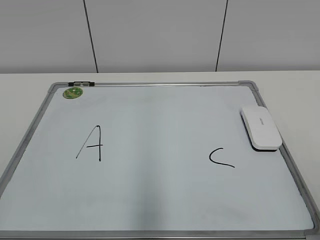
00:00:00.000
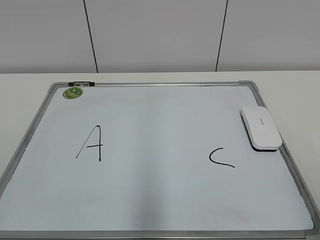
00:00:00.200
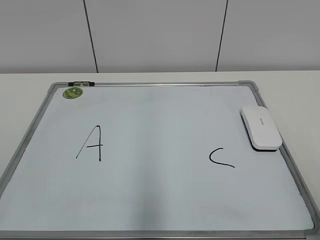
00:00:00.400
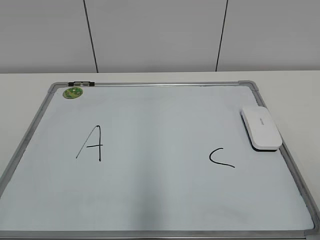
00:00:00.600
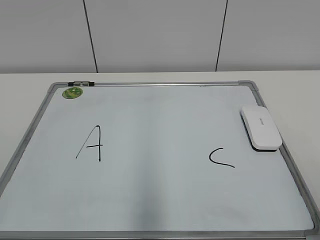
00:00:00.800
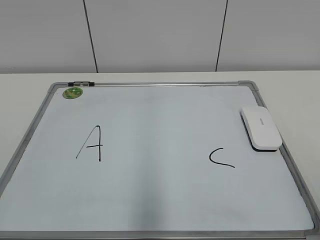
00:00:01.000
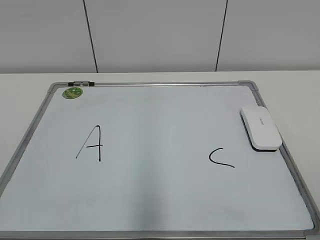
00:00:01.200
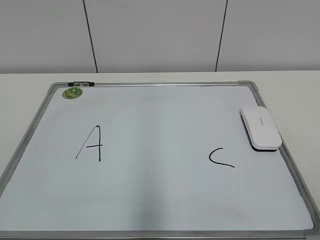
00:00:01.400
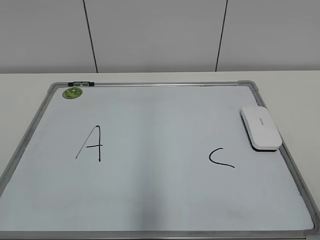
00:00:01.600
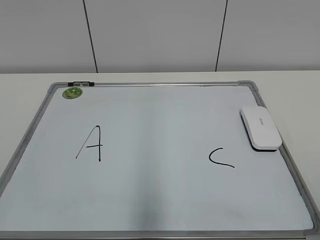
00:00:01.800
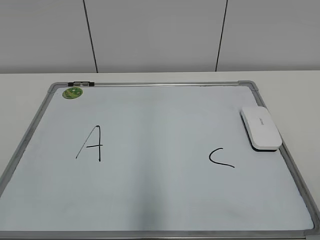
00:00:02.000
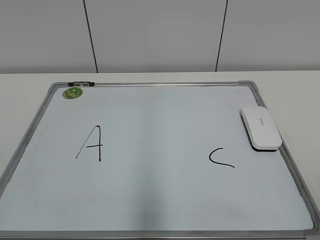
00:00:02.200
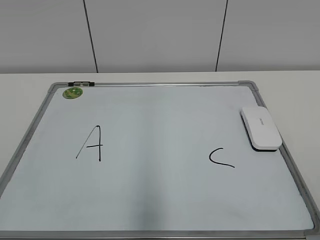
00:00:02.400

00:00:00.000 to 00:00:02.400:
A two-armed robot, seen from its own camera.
Task of the whole recording: pick up the eraser on the blackboard and erase the letter "B".
00:00:01.200 to 00:00:02.400: Neither gripper changes place.

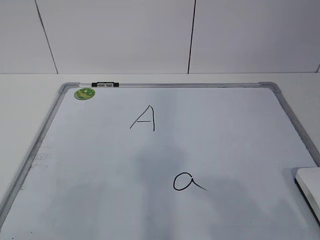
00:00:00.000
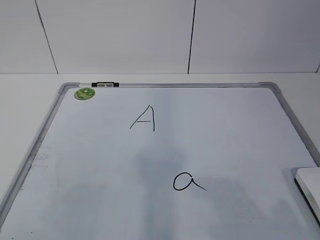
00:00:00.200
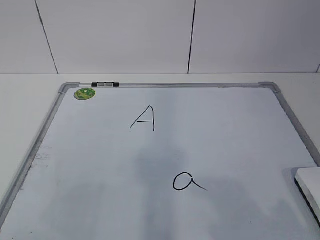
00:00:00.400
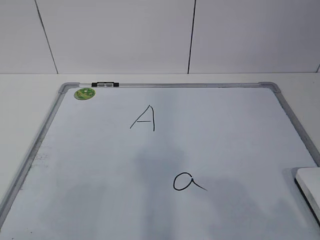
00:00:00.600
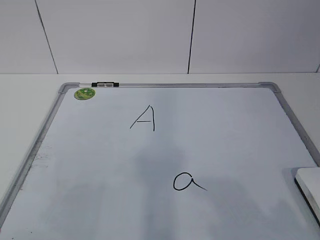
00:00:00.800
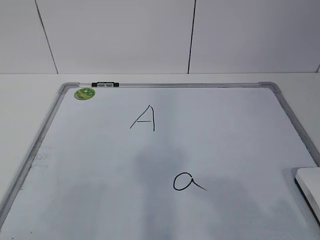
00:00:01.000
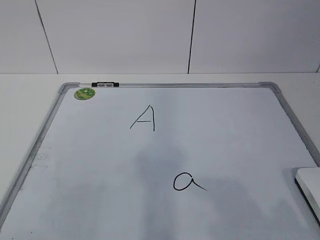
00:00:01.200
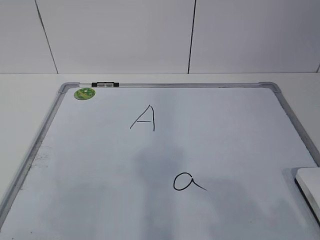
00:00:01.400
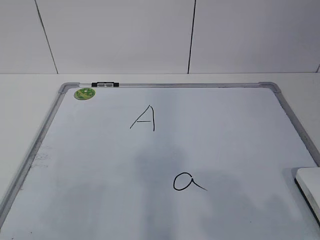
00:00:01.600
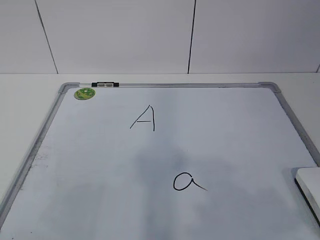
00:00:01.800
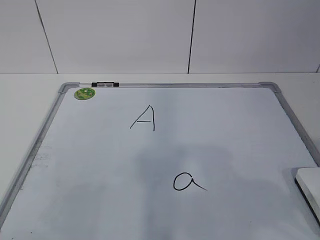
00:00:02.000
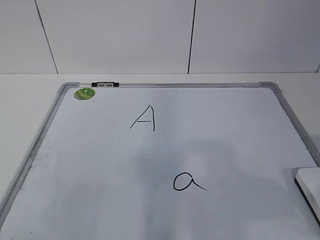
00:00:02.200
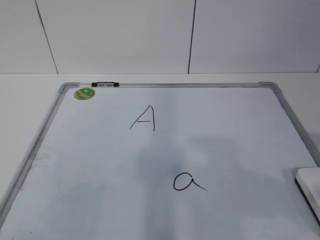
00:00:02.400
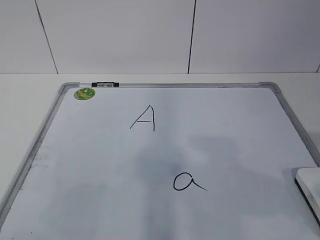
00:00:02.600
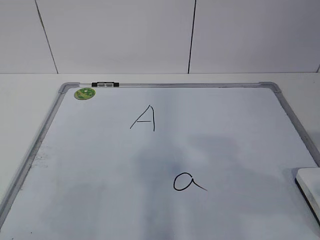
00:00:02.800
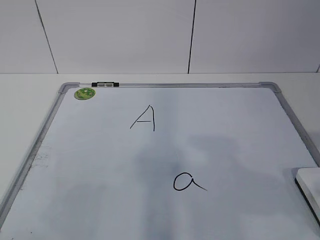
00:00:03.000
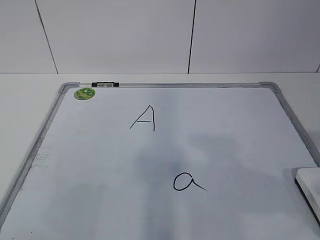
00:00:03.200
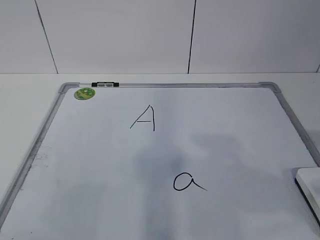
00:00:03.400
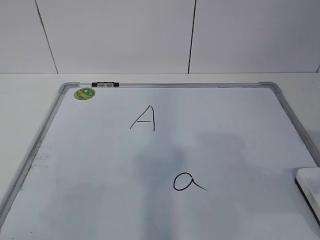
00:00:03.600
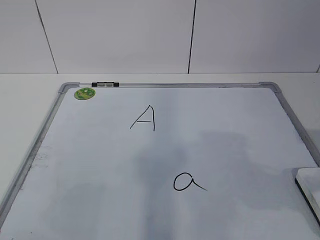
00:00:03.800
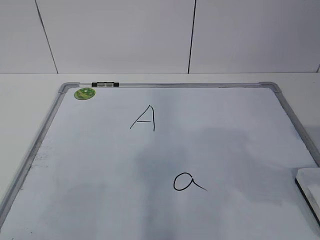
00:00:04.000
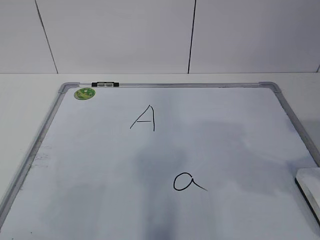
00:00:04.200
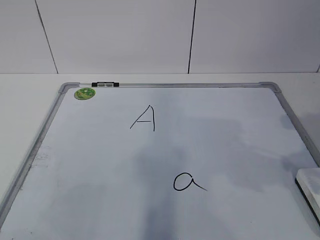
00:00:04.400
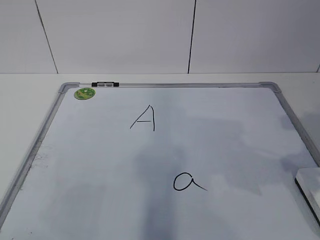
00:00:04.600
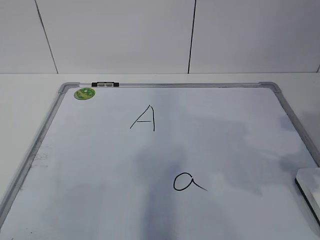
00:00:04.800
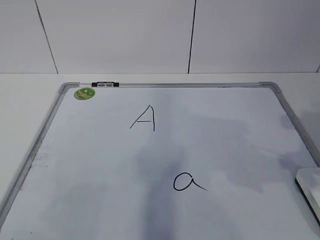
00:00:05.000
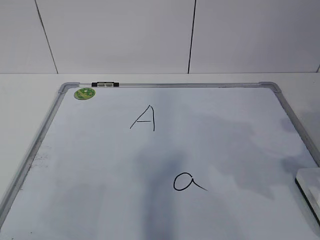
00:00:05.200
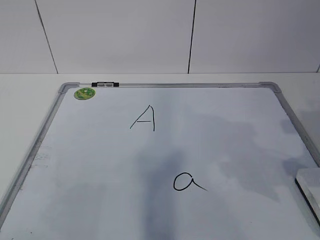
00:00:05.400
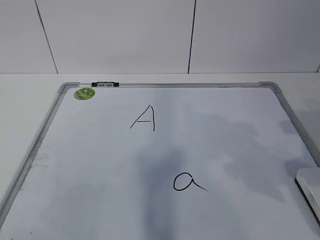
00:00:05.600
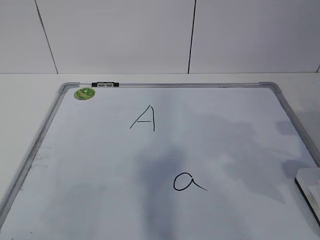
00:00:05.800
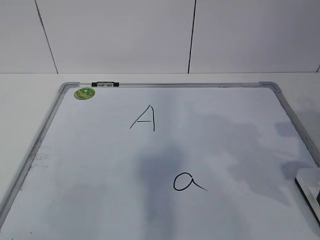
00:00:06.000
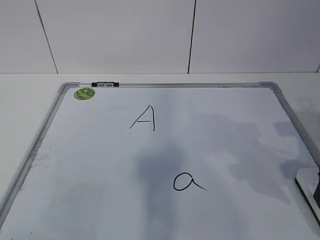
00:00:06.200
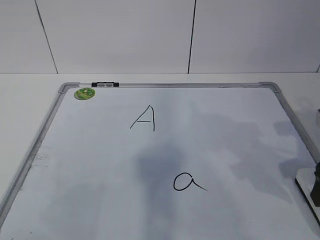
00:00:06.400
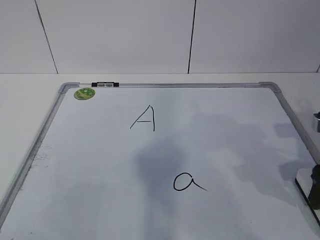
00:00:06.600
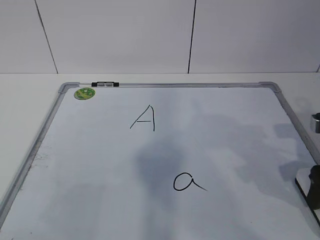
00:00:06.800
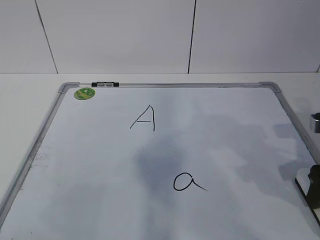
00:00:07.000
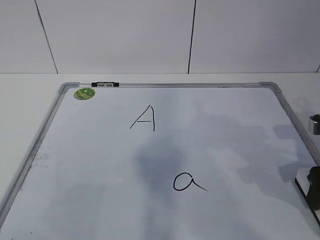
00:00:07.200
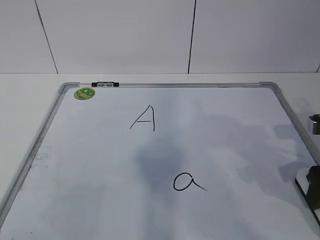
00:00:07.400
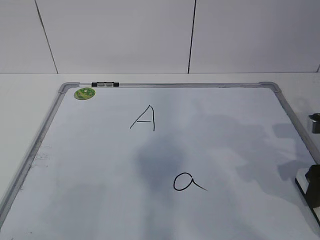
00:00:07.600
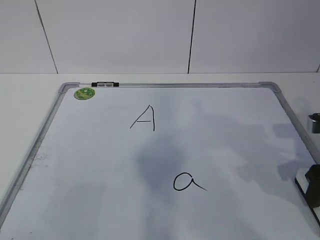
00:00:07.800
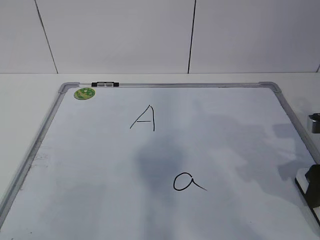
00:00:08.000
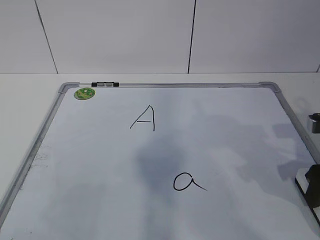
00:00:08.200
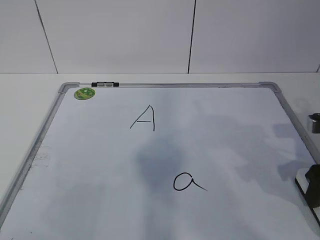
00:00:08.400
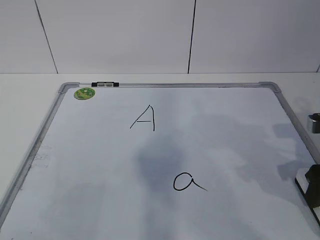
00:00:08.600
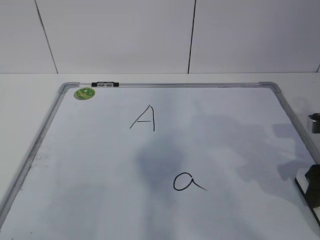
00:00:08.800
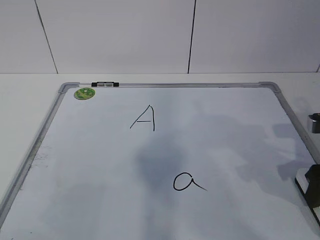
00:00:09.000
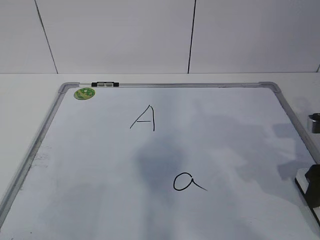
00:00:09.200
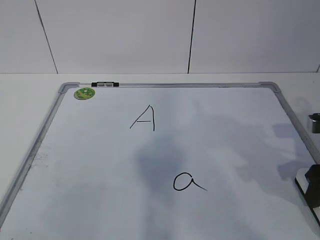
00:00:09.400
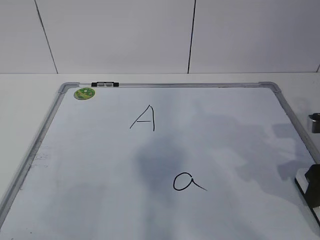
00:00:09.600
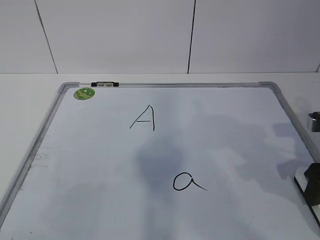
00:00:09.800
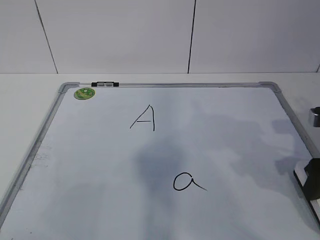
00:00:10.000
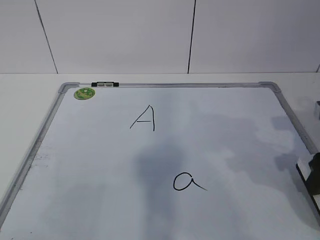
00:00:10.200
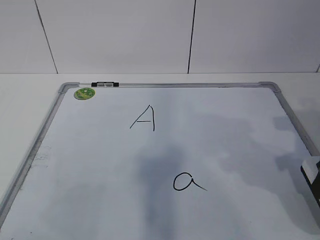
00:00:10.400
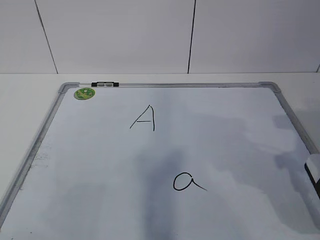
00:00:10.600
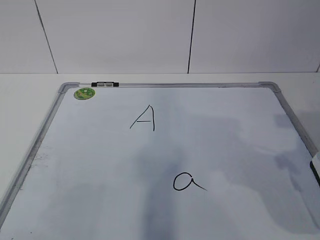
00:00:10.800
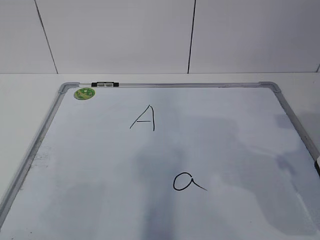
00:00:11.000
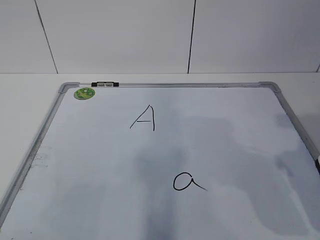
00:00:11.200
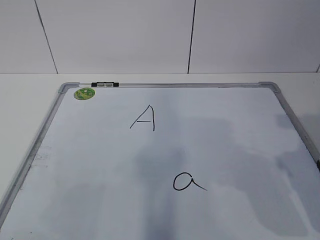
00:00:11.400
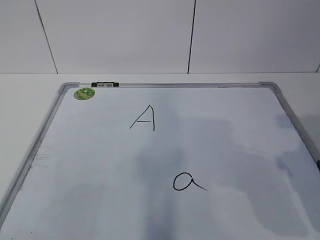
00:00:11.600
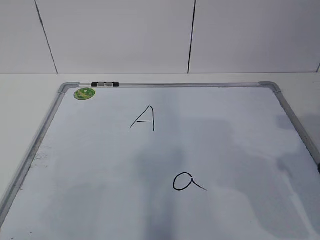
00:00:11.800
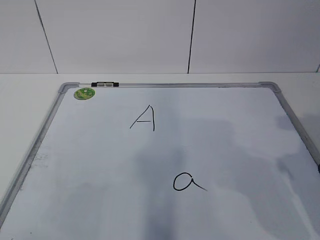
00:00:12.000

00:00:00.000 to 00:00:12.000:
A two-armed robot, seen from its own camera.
Task of the whole recording: pick up the eraser on the blackboard and erase the letter "a".
00:00:07.600 to 00:00:09.000: Both grippers stay put.
00:00:09.000 to 00:00:10.400: The grippers make only small movements.
00:00:10.400 to 00:00:12.000: The right gripper travels backward and upward by roughly 10 cm.

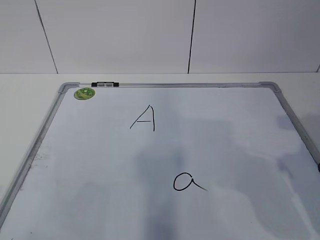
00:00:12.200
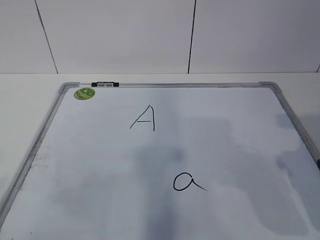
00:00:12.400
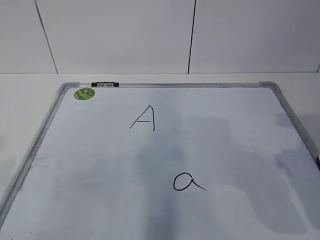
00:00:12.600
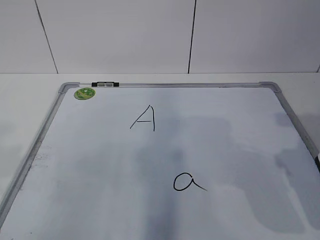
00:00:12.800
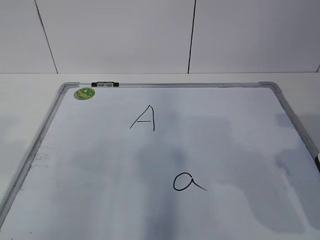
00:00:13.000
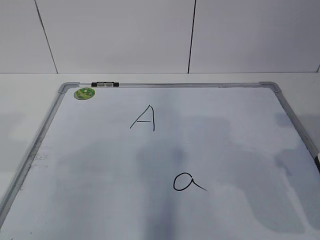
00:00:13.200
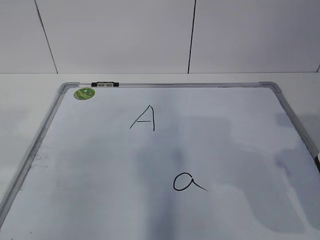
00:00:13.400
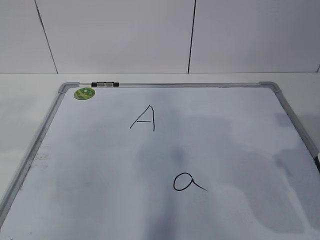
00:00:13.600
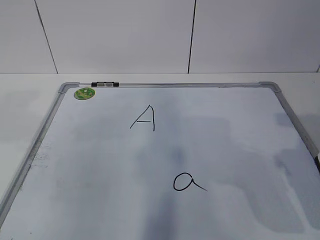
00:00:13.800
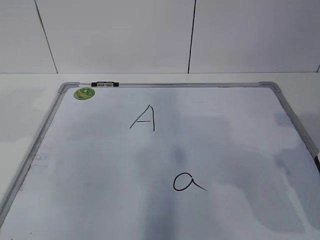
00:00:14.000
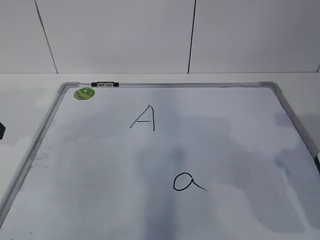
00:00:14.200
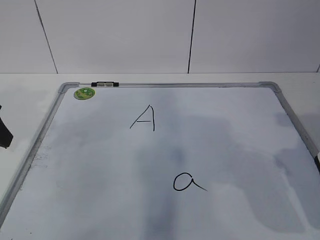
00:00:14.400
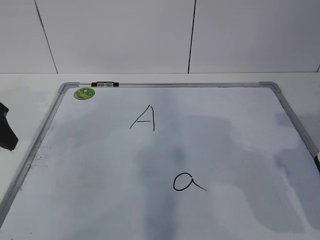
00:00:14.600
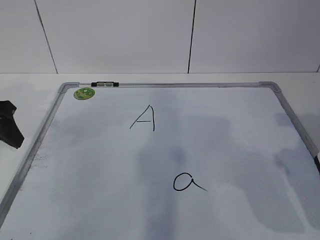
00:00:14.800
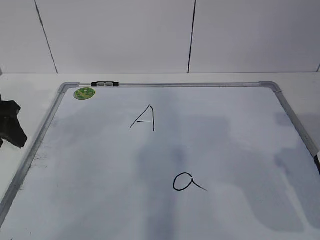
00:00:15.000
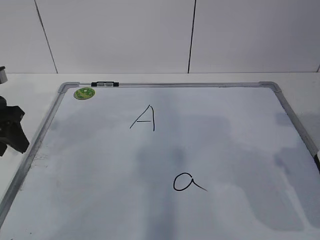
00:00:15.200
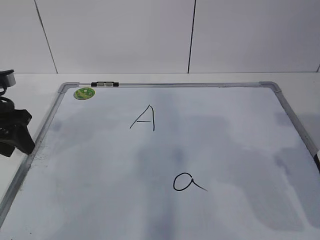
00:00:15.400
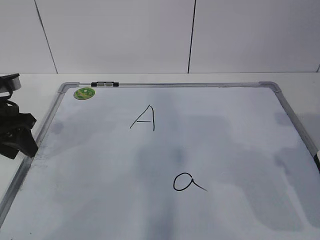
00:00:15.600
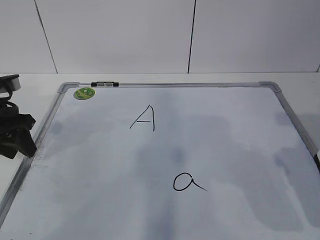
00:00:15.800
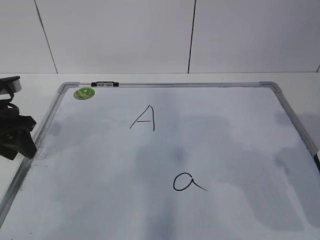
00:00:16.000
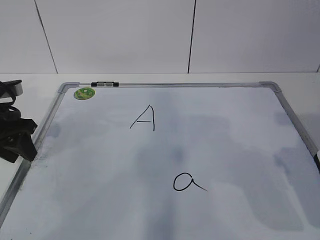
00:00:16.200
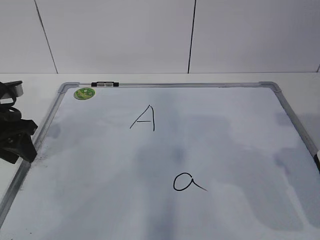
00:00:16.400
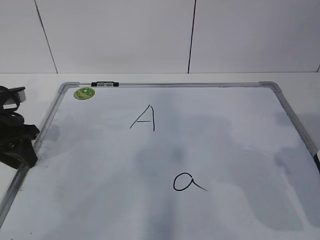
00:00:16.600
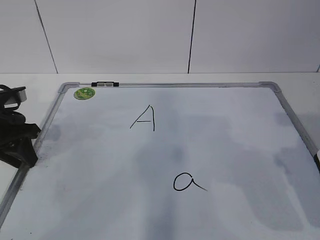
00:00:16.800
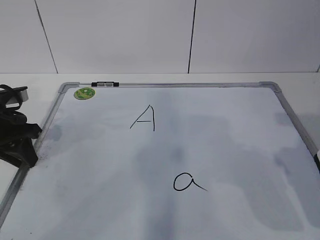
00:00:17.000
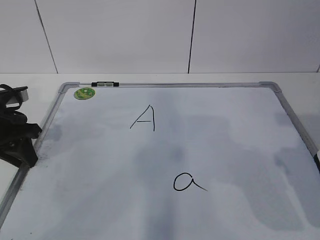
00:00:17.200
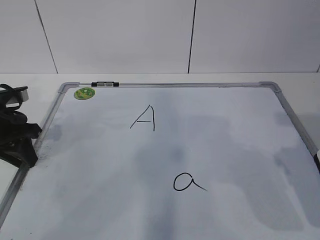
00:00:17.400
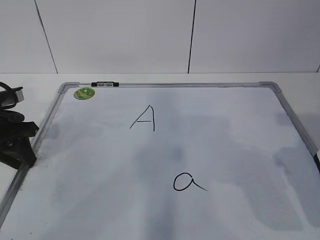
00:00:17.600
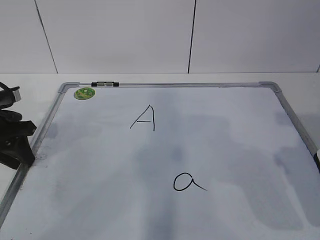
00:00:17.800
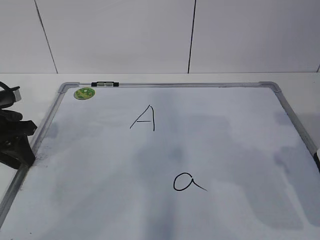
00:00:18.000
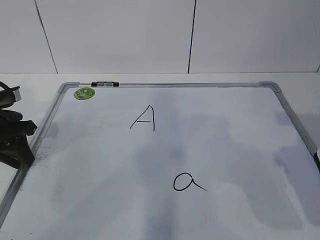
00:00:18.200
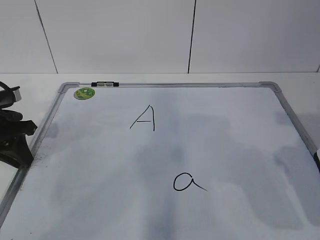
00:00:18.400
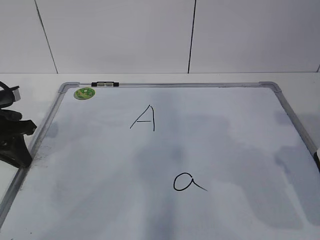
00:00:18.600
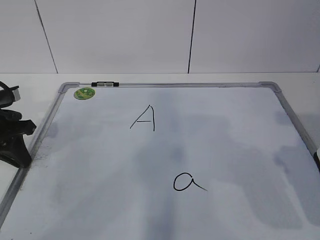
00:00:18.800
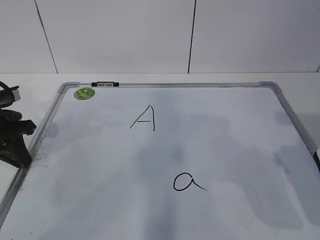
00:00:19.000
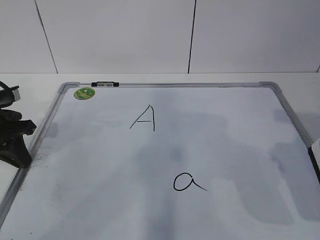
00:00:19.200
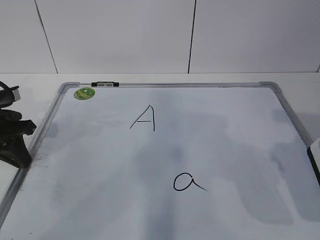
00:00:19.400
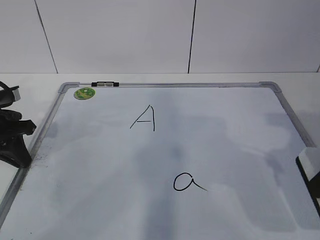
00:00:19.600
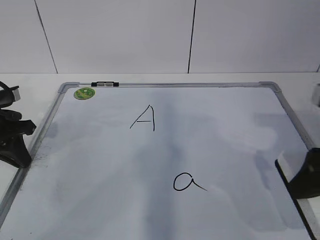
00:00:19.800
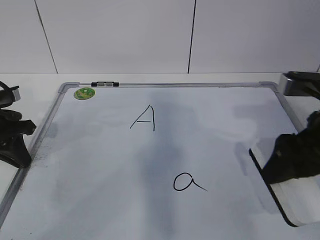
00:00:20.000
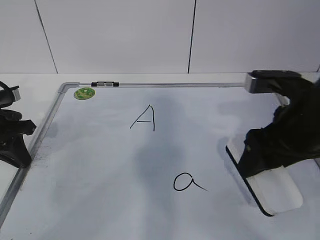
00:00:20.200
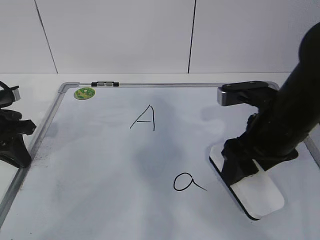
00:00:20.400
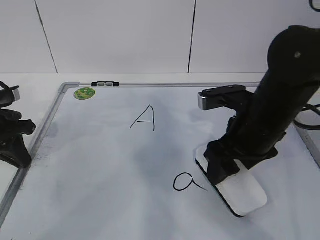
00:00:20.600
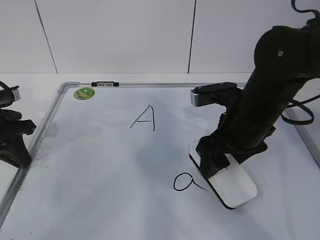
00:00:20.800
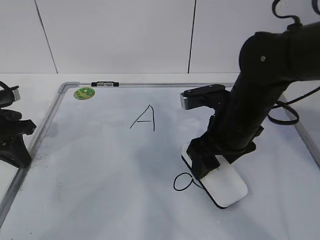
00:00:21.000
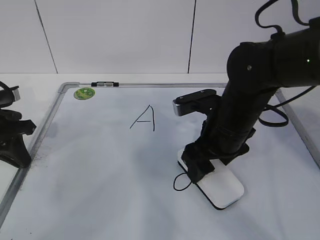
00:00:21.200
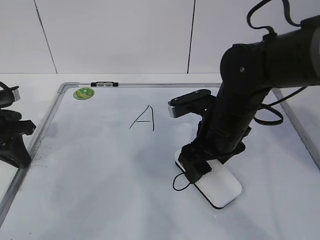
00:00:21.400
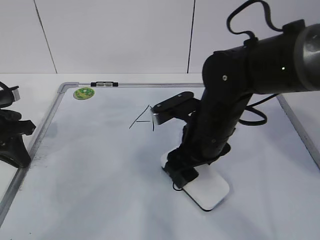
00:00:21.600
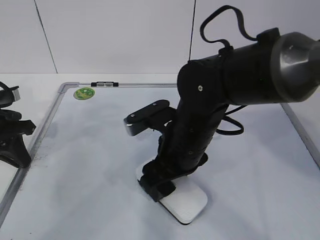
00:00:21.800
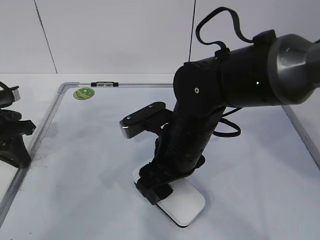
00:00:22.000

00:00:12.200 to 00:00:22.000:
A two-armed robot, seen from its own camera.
Task of the whole recording: pick up the eraser on the blackboard and erase the letter "a".
Step, 00:00:12.200 to 00:00:15.400: Hold the drawing board steady with your left hand.
Step, 00:00:15.800 to 00:00:20.200: Erase the letter a with your right hand.
00:00:13.600 to 00:00:15.000: The left gripper travels forward and downward by approximately 15 cm.
00:00:15.000 to 00:00:16.400: The left gripper moves approximately 5 cm.
00:00:16.400 to 00:00:17.800: The grippers make only small movements.
00:00:19.200 to 00:00:20.600: The right gripper moves to the left, forward and downward, some 20 cm.
00:00:20.600 to 00:00:22.000: The right gripper goes approximately 10 cm to the left.
